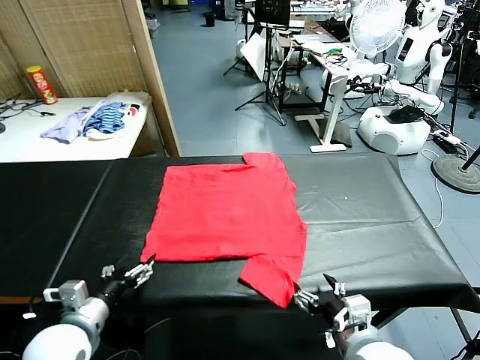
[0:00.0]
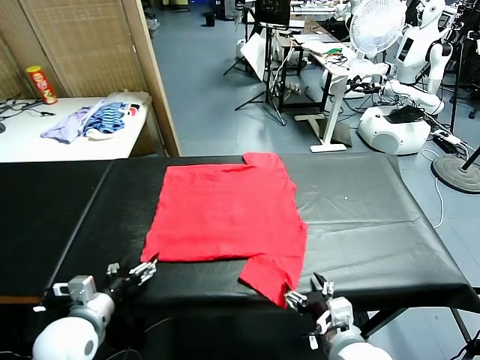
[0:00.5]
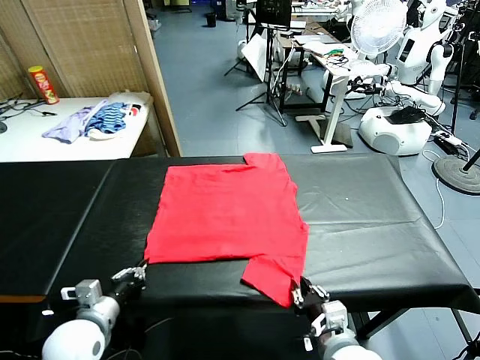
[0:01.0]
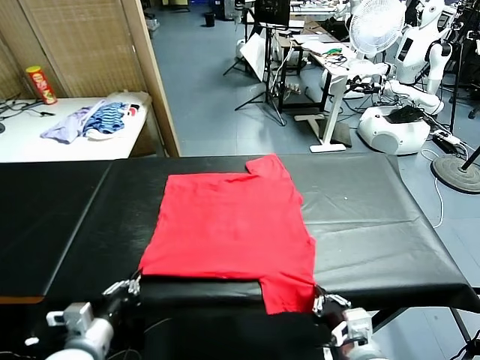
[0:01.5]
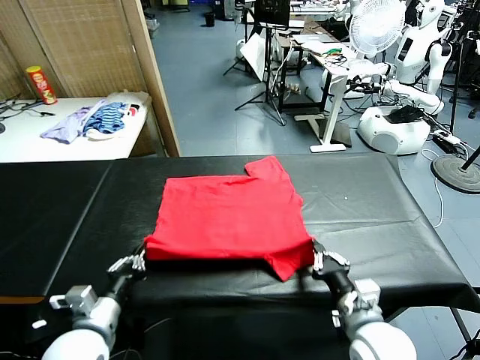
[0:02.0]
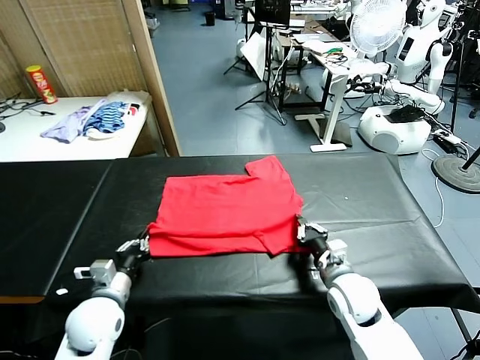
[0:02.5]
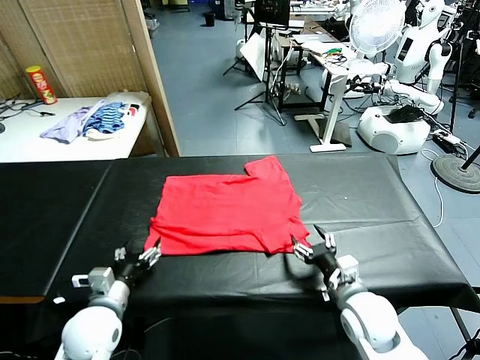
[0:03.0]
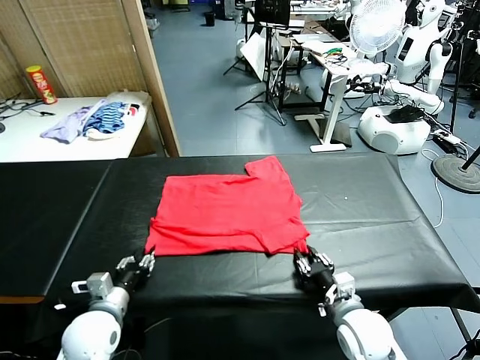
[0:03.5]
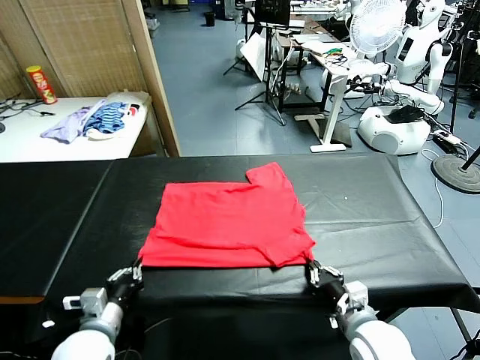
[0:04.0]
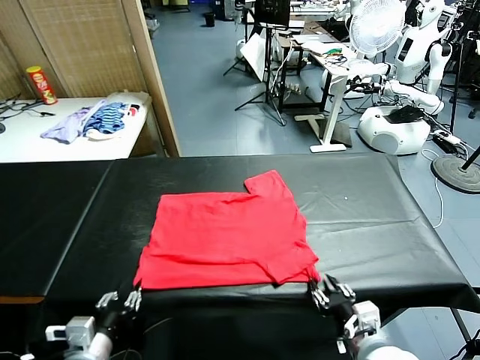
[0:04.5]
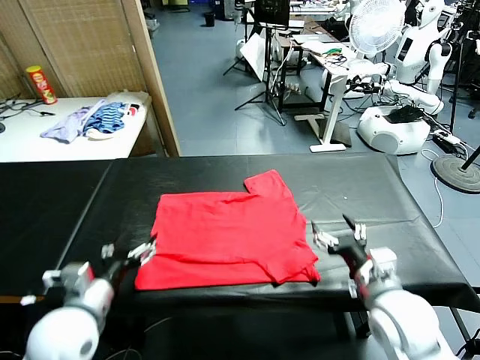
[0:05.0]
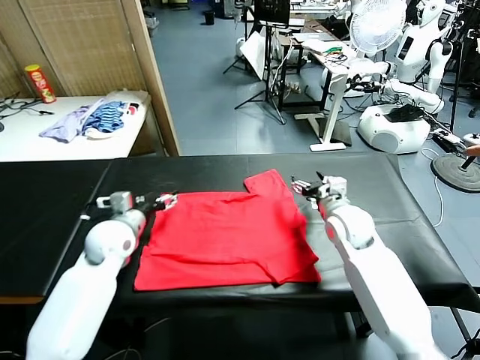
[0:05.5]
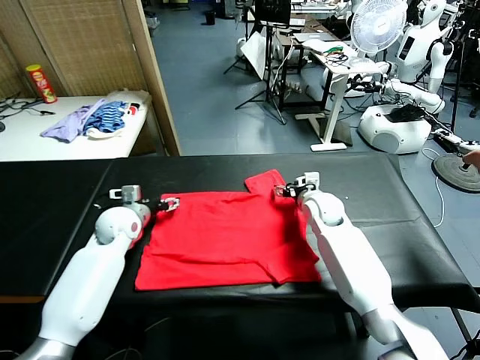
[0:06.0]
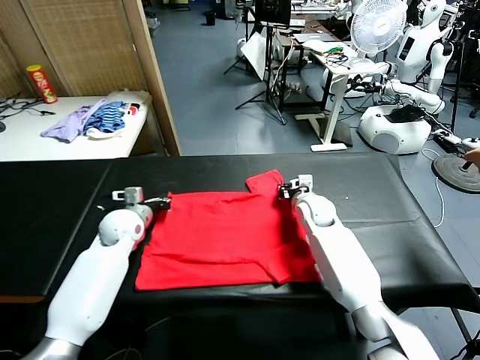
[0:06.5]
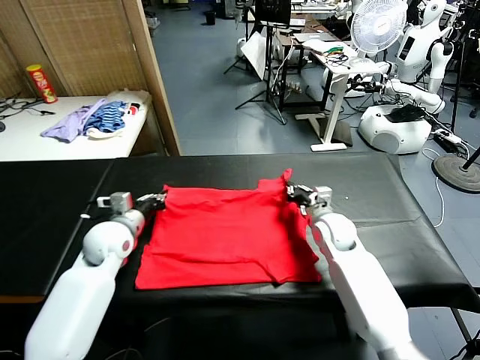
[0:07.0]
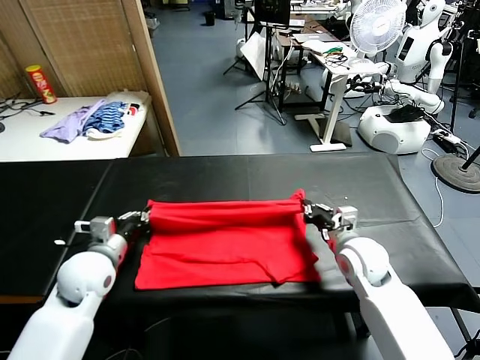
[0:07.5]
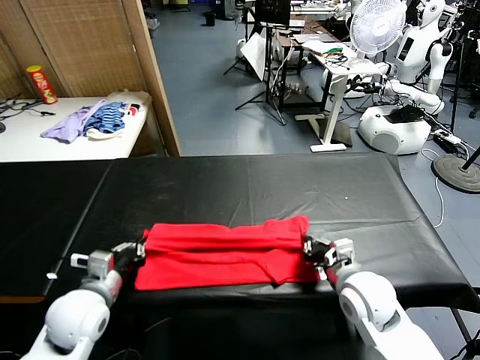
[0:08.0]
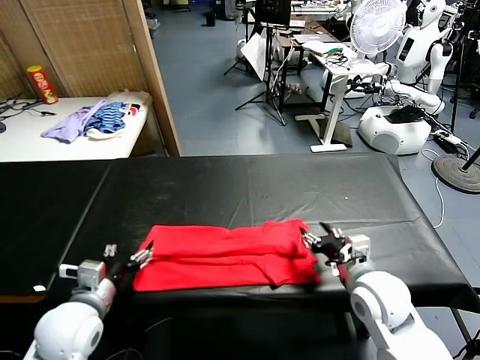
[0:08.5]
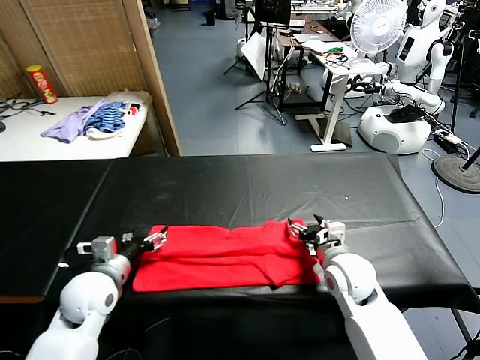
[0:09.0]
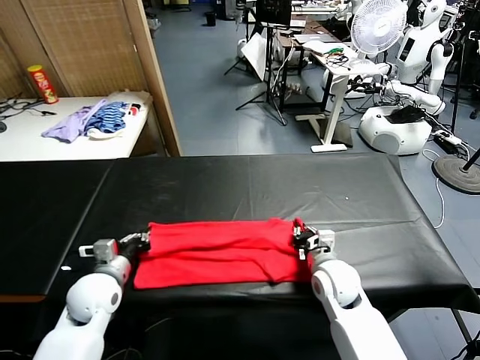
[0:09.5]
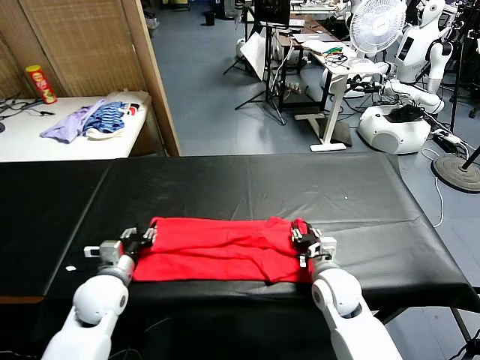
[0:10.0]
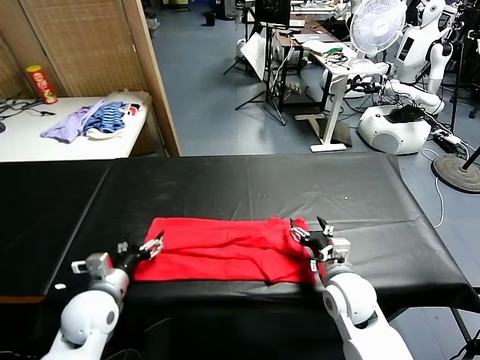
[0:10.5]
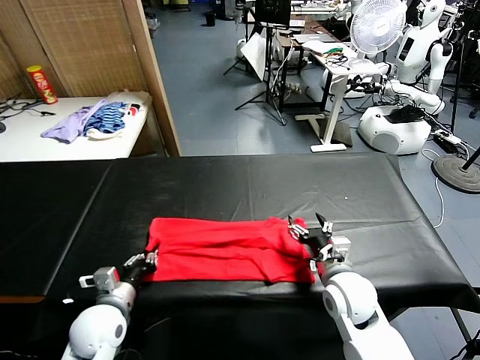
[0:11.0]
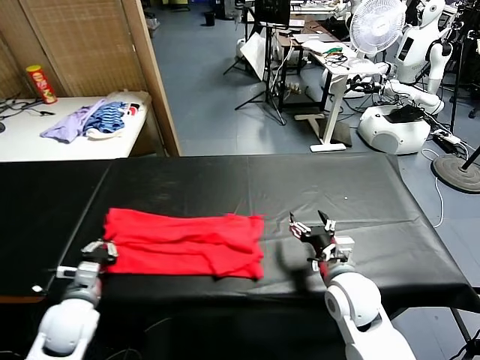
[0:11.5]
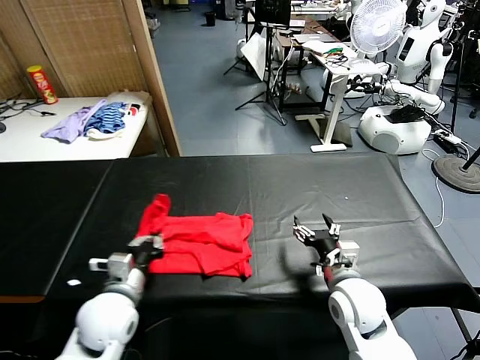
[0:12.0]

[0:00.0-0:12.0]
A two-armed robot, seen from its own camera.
Task of the whole recording: fold and organize the clothes.
Step, 0:00.0 to 0:01.0: use both grippers simultaneously to clamp the lower edge of the clothing fabric.
Step, 0:01.5 to 0:02.5: use both grippers to drag the lower edge of the fabric forward and fold it over the upper edge.
Step, 0:03.0 to 0:04.5: Drag the clothes downward with both gripper.
Step, 0:05.0 to 0:06.0: use both grippers simultaneously to clamp the upper edge of the clothing fabric.
Step, 0:06.5 to 0:08.0: use both grippers to drag the upper edge of the fabric backward and fold it over the lower edge.
Step, 0:08.5 to 0:11.0: use the left gripper to clamp the left edge of the fabric.
0:02.0 to 0:04.0: The right gripper moves backward, approximately 10 cm, and opens and closes again. Meanwhile the left gripper opens and closes again.
0:04.0 to 0:06.0: The two grippers go about 30 cm forward. The right gripper opens up. Meanwhile the left gripper opens.
0:06.0 to 0:08.0: The grippers both shift backward by approximately 25 cm. The right gripper closes up; the left gripper closes its fingers.
0:08.0 to 0:10.0: The left gripper travels forward by some 5 cm, and opens its fingers; the right gripper is displaced downward by approximately 5 cm, and opens up.
0:10.0 to 0:12.0: The right gripper ends up some 5 cm from where it was. Meanwhile the left gripper shifts some 10 cm to the right and backward, and closes its fingers.

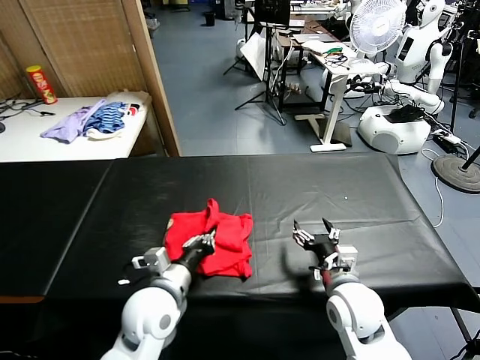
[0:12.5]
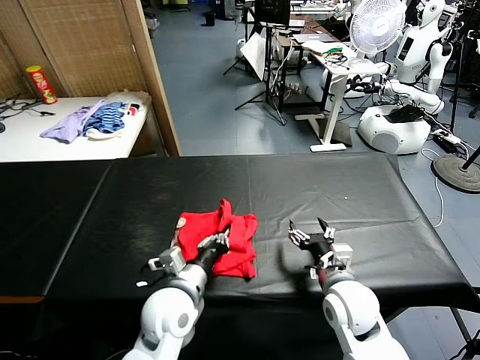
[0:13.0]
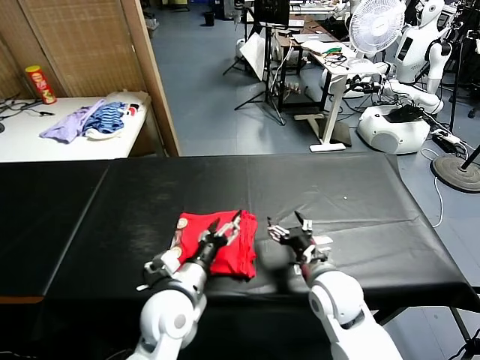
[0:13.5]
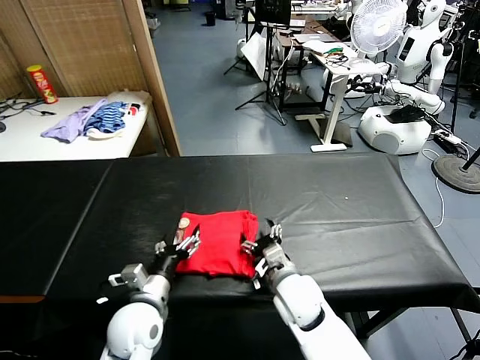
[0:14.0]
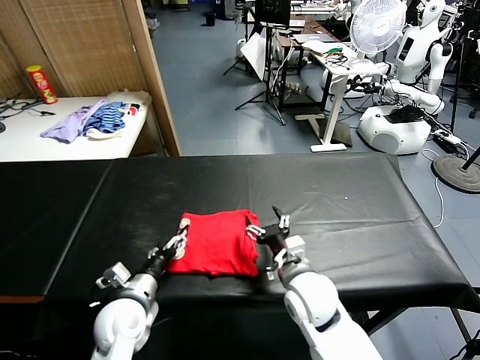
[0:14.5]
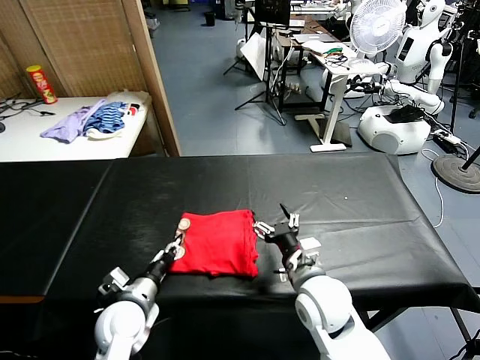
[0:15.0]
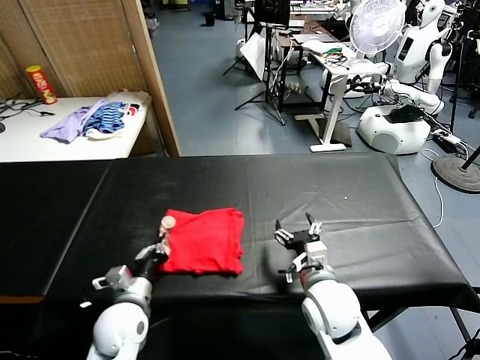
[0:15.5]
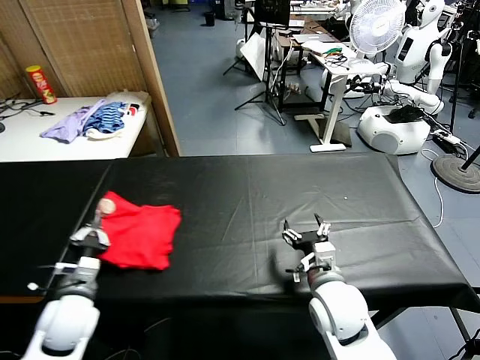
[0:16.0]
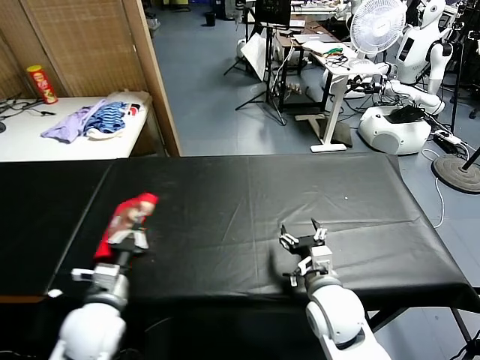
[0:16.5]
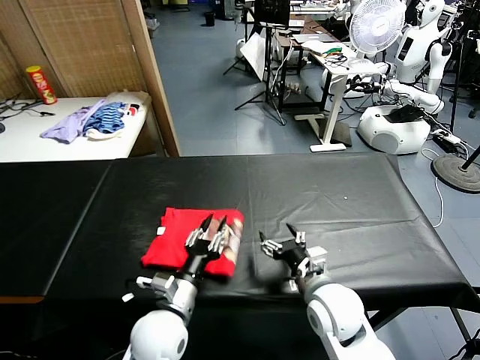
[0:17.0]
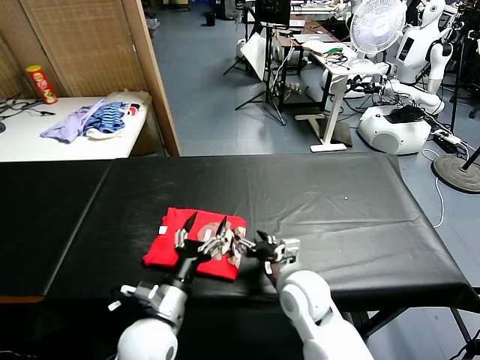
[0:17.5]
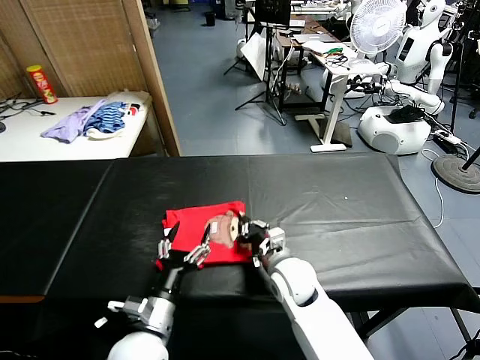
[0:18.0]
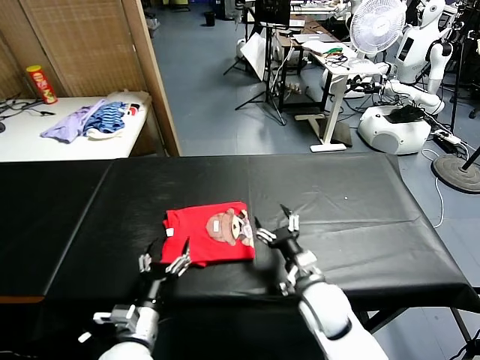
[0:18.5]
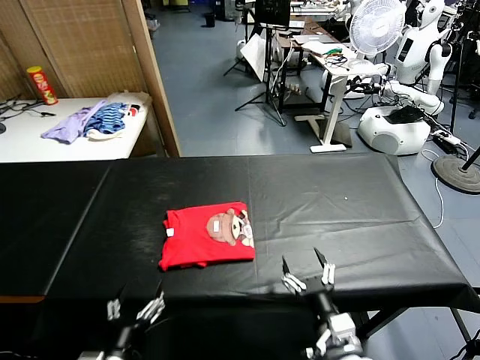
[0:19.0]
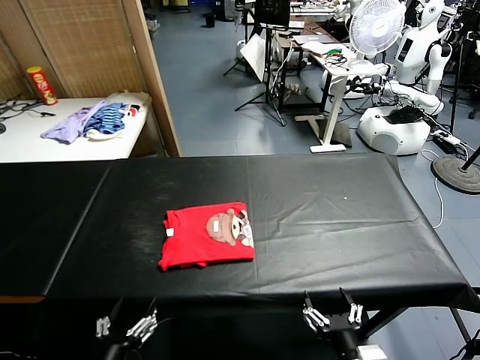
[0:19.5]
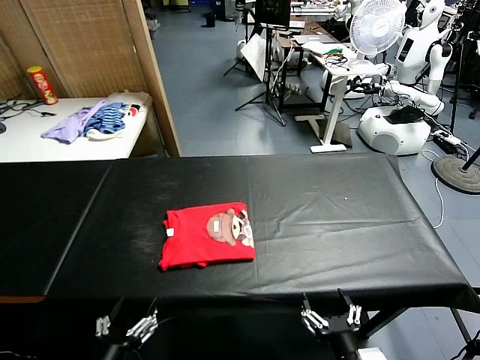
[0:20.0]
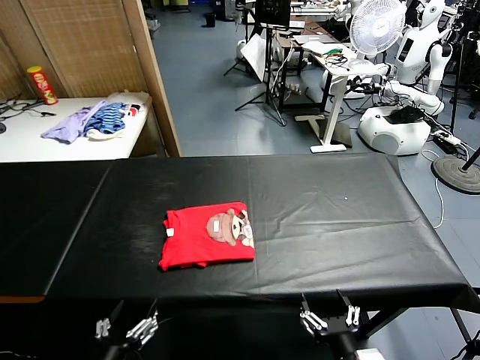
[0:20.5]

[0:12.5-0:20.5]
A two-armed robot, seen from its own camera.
Task of the whole recording: fold and organize the clothes.
Step, 0:13.5 to 0:17.0: Flip the folded clothes over with left gripper.
Step, 0:17.5 to 0:18.0: Drag the clothes to the center of the table.
0:12.5 to 0:14.5: The right gripper travels to the left by about 10 cm. Meanwhile the left gripper travels to the left and downward by about 10 cm, and opens up.
0:14.5 to 0:16.5: The left gripper moves approximately 10 cm to the left and comes back, and closes.
0:16.5 to 0:18.5: The left gripper heads to the right, downward and backward, covering about 10 cm, and opens its fingers, while the right gripper closes, then reopens.
0:18.5 to 0:20.5: The right gripper shifts roughly 20 cm backward, while the left gripper travels backward and upward by roughly 15 cm.

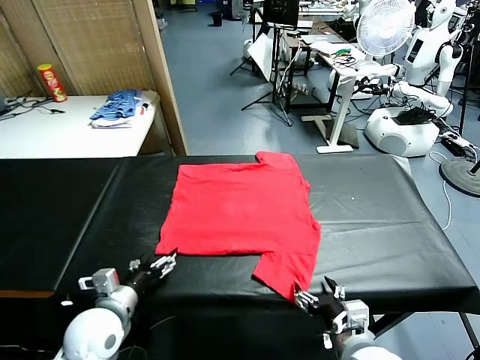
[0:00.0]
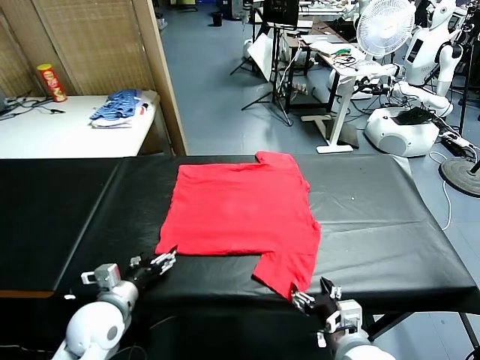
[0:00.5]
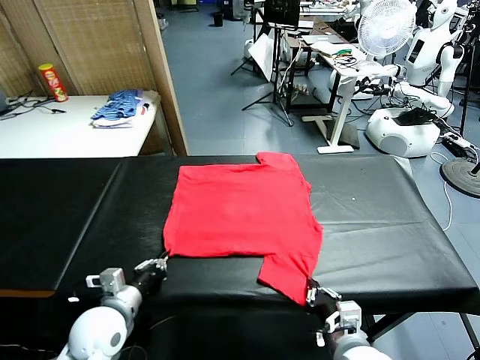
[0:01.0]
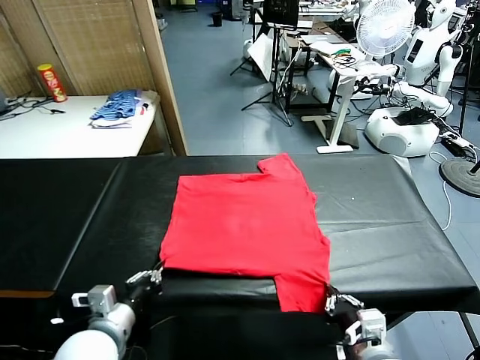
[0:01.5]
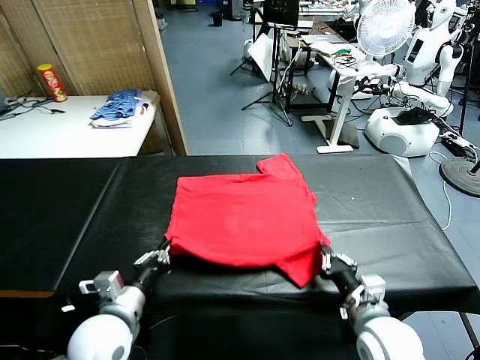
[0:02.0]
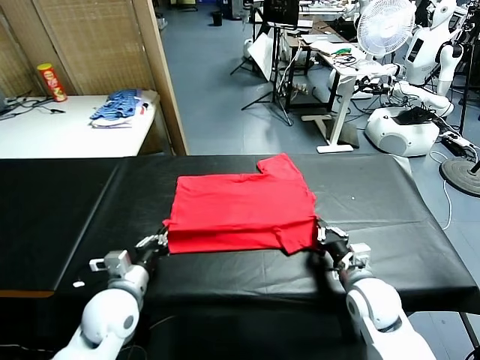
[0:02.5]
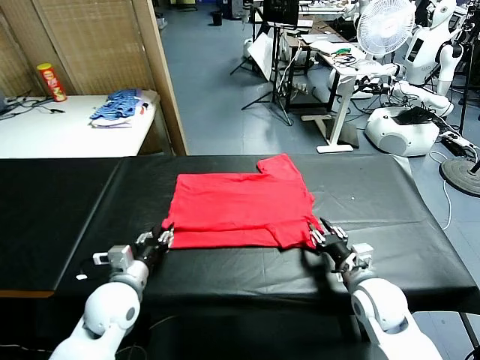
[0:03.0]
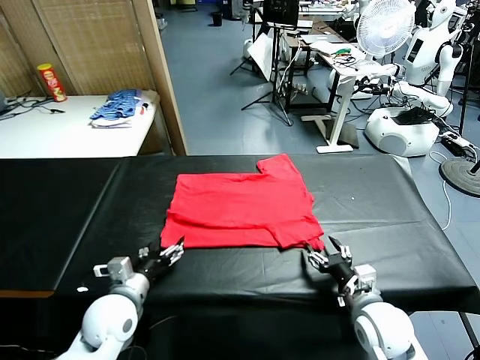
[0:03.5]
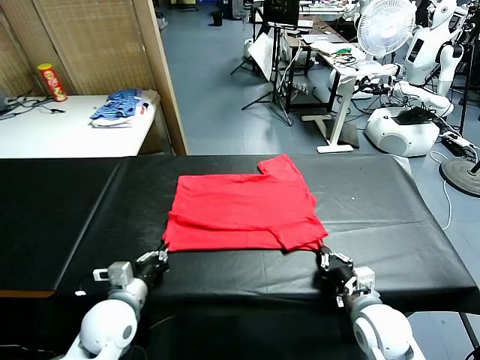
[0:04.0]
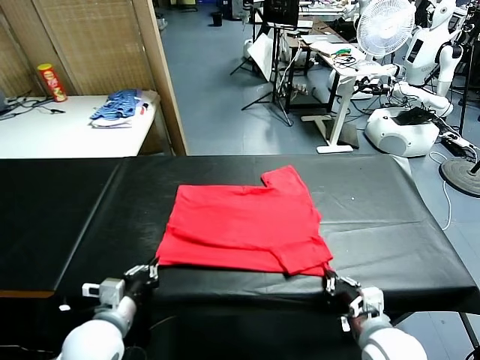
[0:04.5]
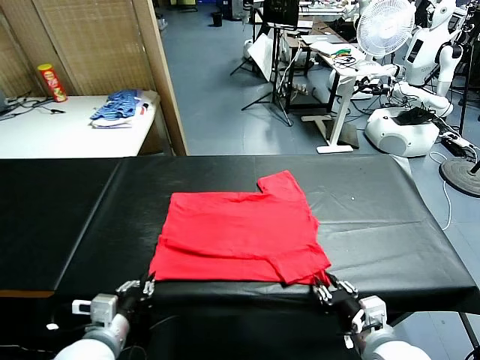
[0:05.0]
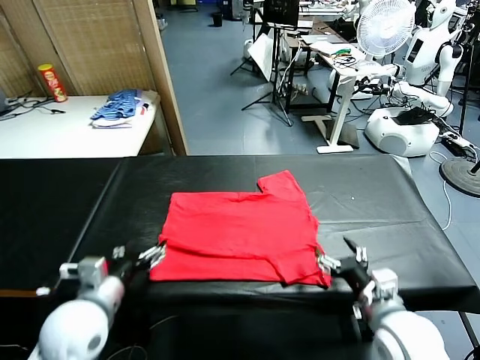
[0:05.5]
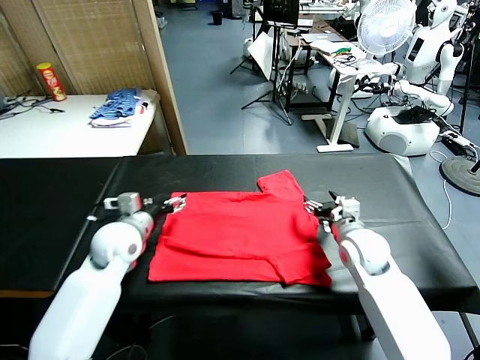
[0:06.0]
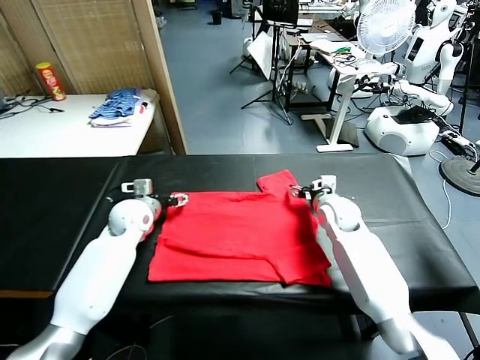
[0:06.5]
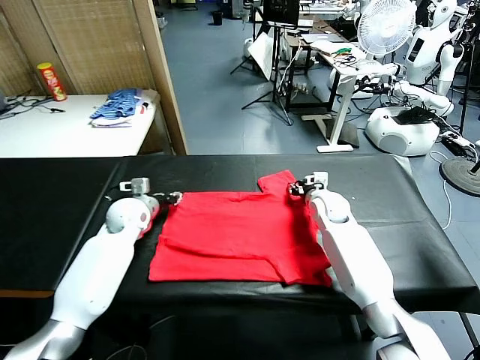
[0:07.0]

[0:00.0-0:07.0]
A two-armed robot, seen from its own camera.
Task of the whole recording: fold and organize the clothes.
Step, 0:00.0 to 0:01.0: use both grippers simultaneously to clamp the lower edge of the clothing fabric.
Step, 0:01.5 to 0:03.0: use both grippers to drag the lower edge of the fabric forward and fold it over the upper edge.
Step, 0:03.5 to 0:05.0: Drag the clothes downward with both gripper.
0:02.0 to 0:03.5: The right gripper opens, then closes once more. Meanwhile the left gripper moves about 5 cm, and opens.
0:03.5 to 0:05.0: The left gripper travels backward and upward by approximately 10 cm, and closes and opens again, while the right gripper moves upward and backward, about 10 cm, and opens its fingers.
0:05.0 to 0:07.0: The grippers both shift forward by roughly 35 cm. The right gripper closes. Meanwhile the left gripper opens and closes again.
